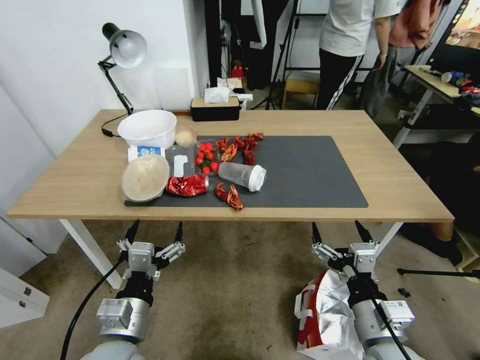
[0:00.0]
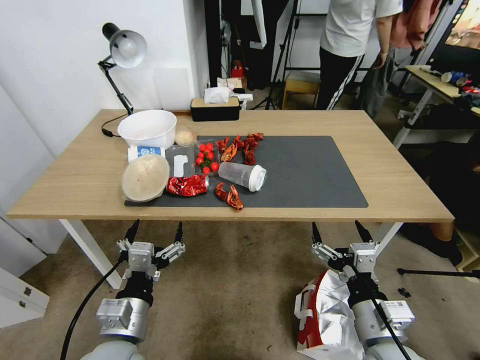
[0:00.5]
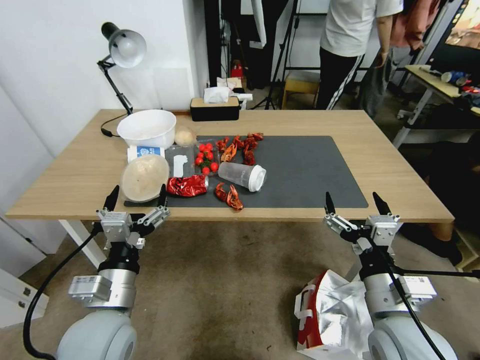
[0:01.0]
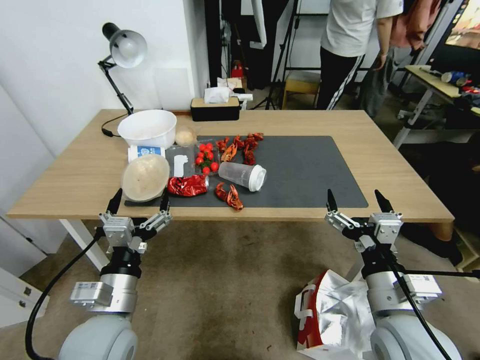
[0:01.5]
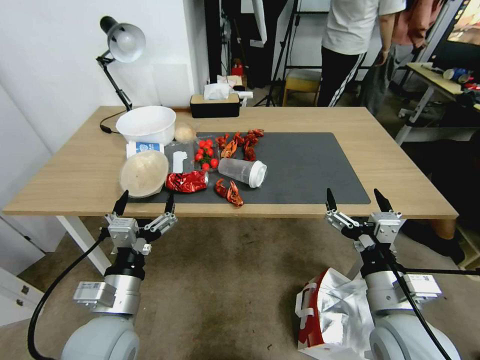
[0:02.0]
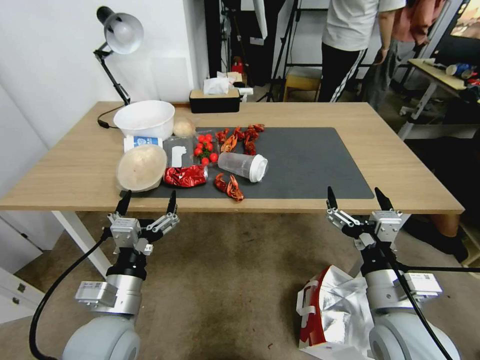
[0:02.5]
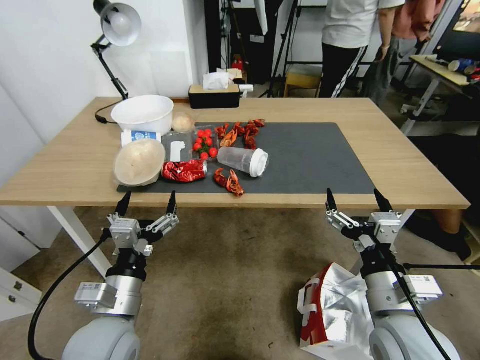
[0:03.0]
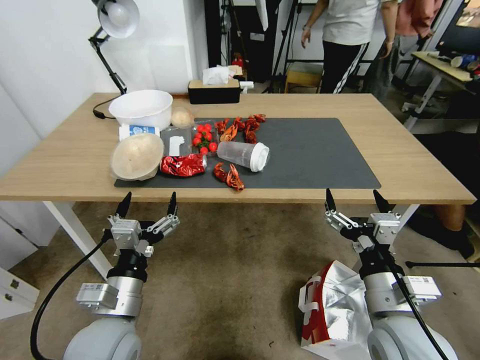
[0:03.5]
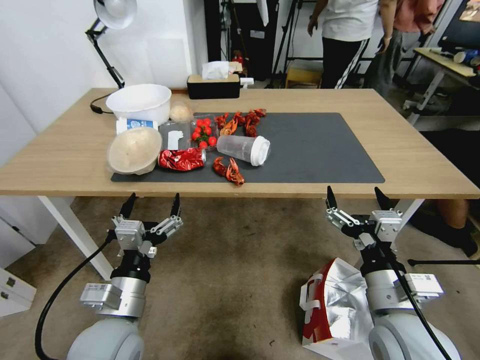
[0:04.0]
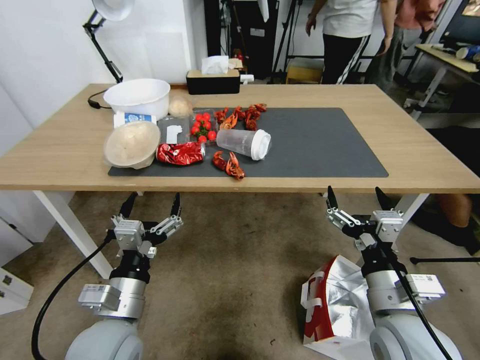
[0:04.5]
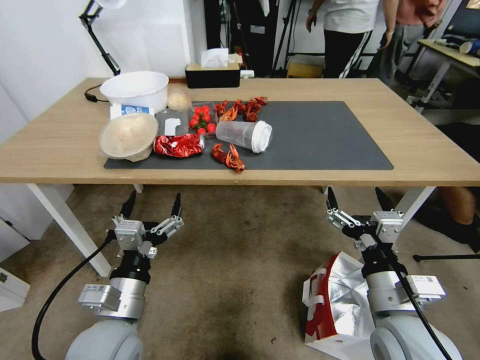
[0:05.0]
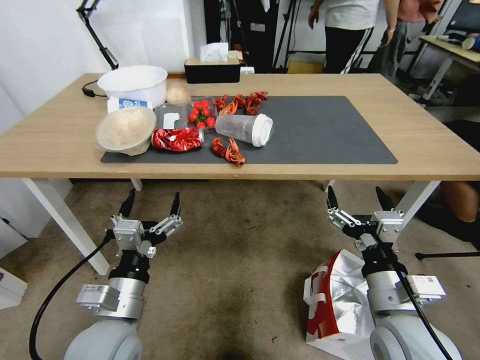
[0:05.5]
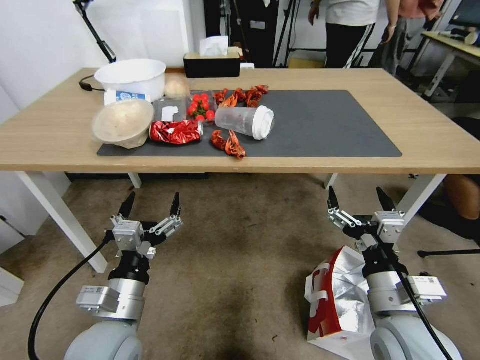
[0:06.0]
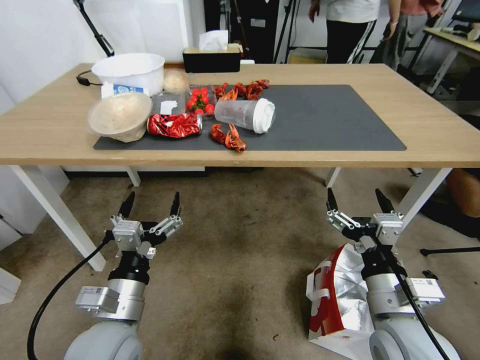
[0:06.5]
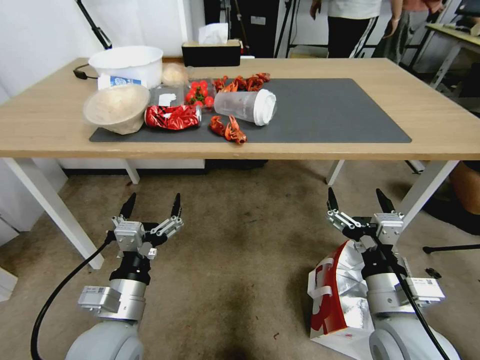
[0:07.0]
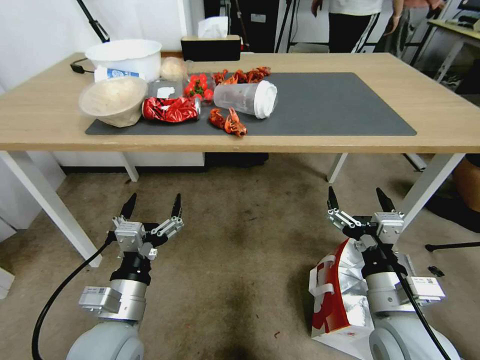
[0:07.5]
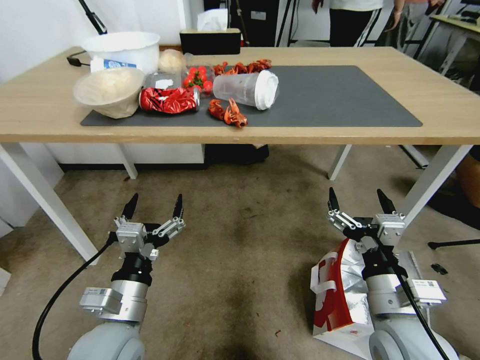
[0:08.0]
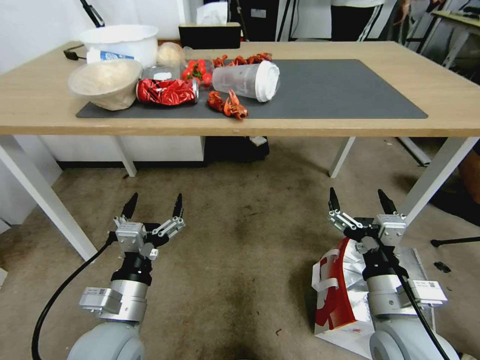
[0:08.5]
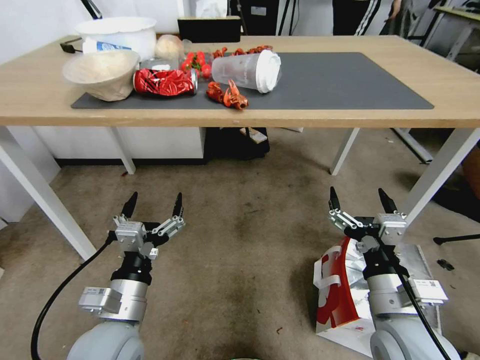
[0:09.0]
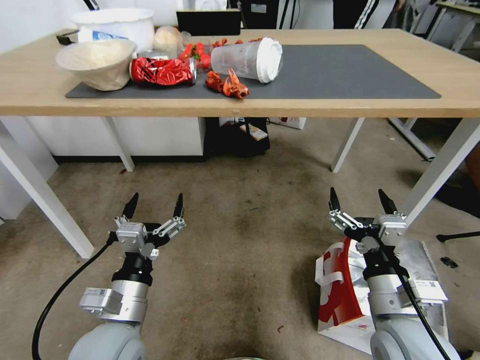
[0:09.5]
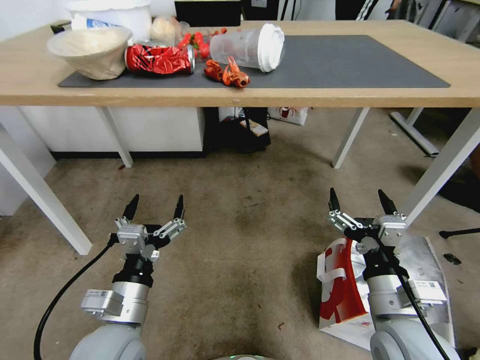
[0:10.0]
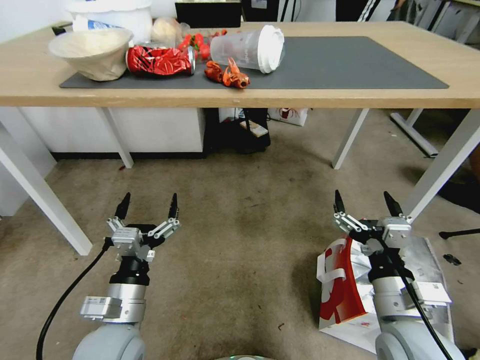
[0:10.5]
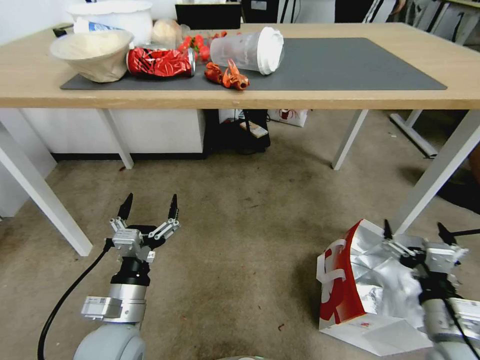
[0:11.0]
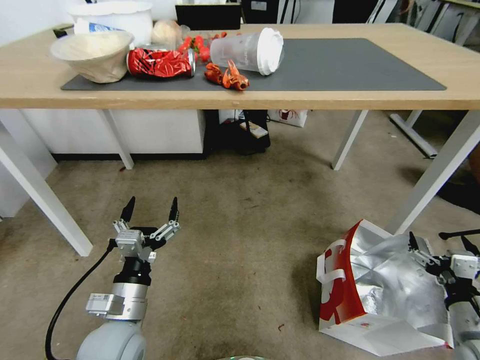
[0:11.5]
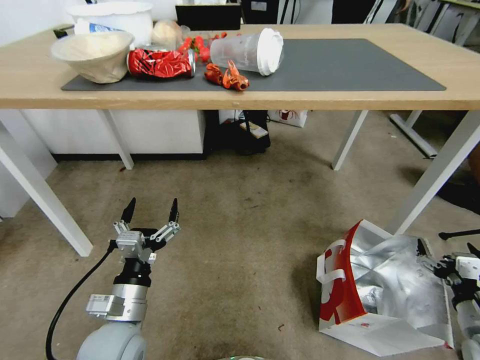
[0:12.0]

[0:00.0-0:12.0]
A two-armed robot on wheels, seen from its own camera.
Task of the whole recording: Pick up the food delivery bag from the floor and place it on the table.
0:10.0 to 0:12.0: The right gripper is displaced to the right and downward by approximately 25 cm.

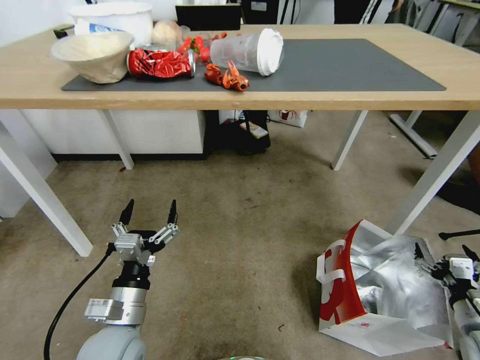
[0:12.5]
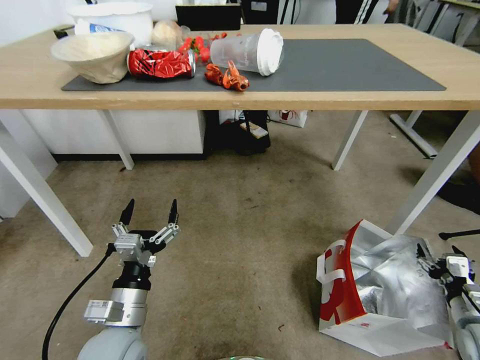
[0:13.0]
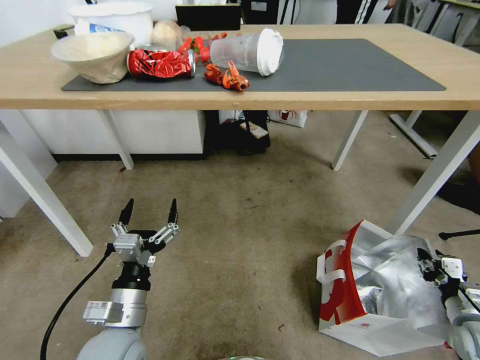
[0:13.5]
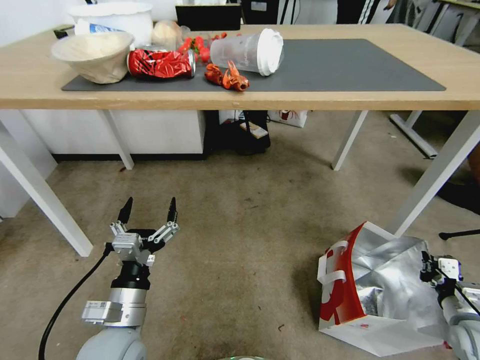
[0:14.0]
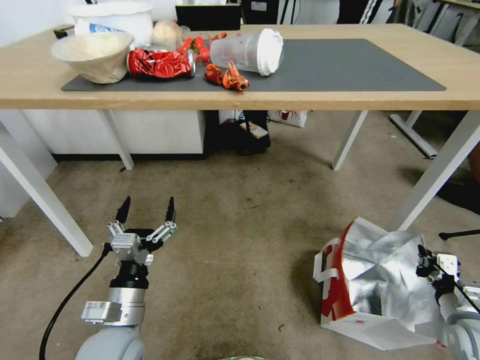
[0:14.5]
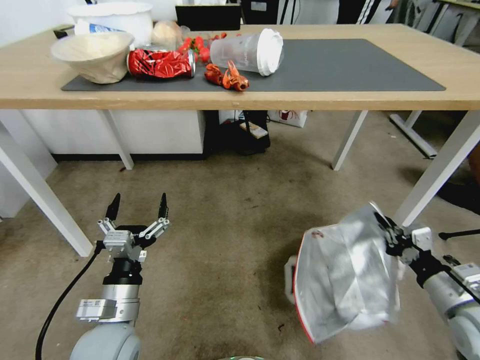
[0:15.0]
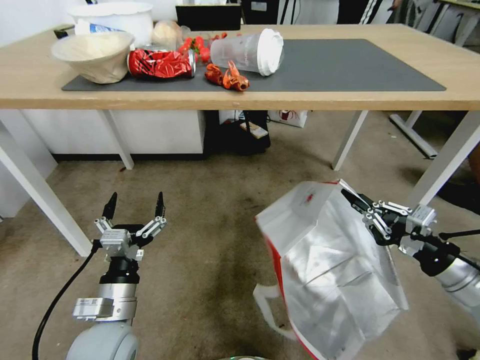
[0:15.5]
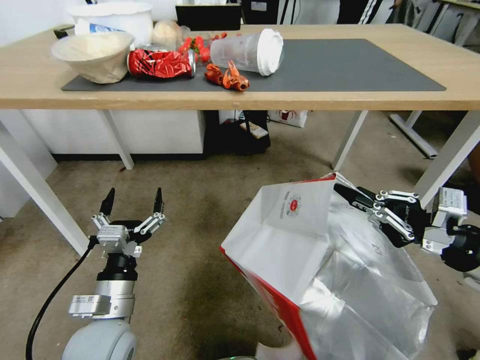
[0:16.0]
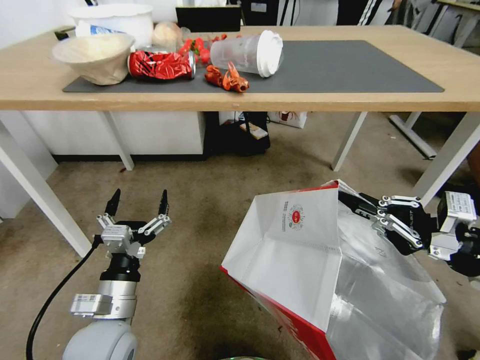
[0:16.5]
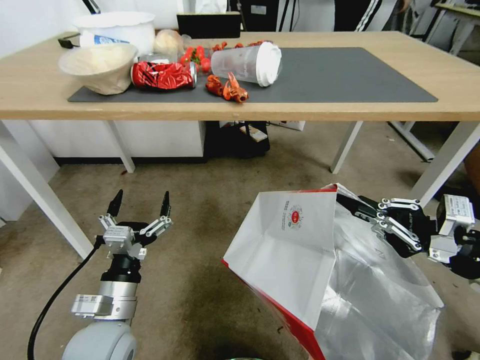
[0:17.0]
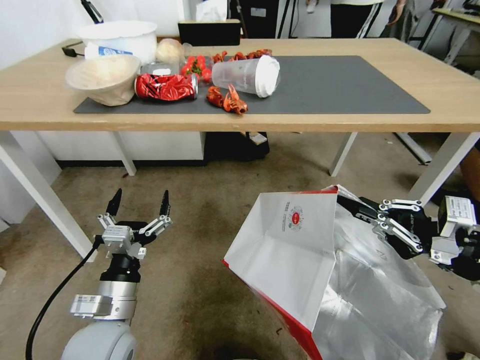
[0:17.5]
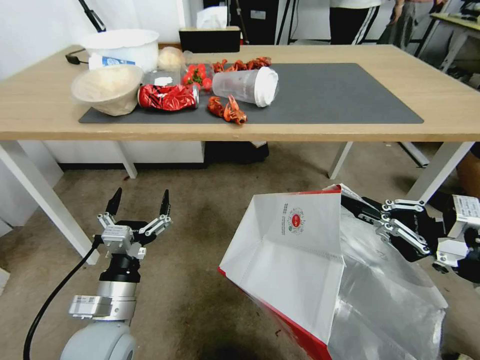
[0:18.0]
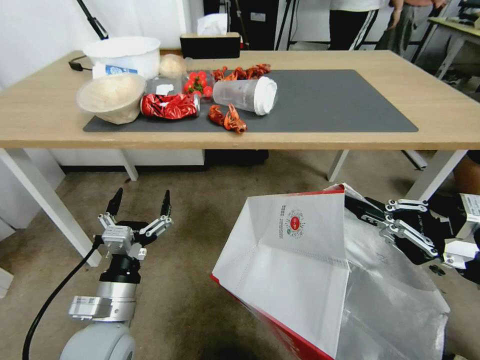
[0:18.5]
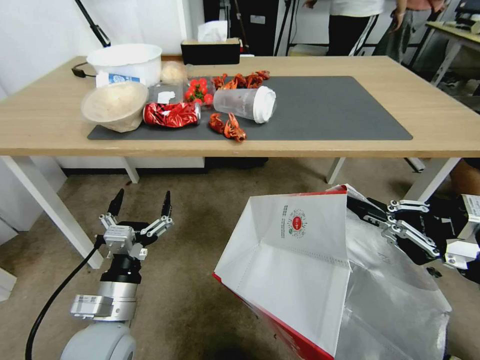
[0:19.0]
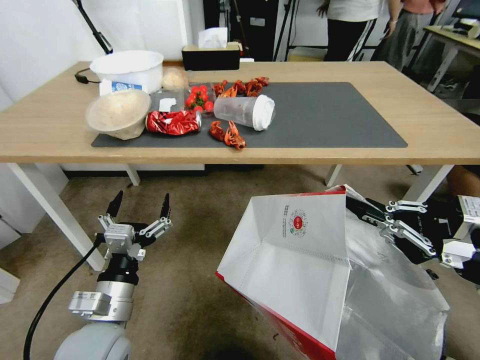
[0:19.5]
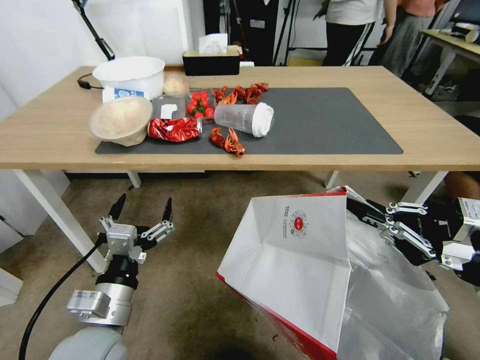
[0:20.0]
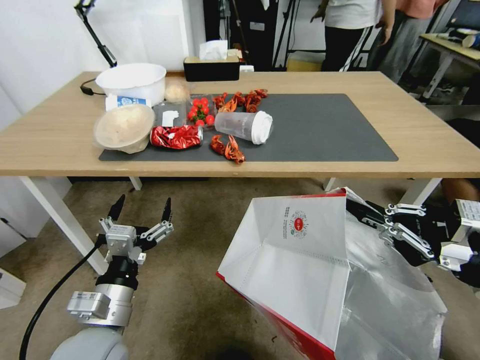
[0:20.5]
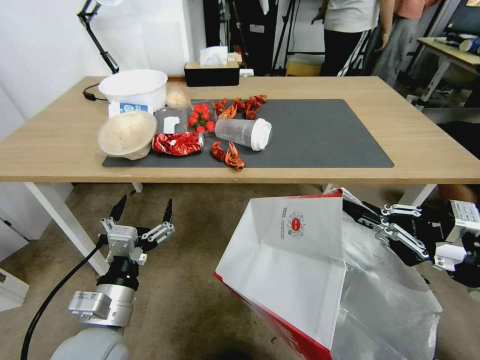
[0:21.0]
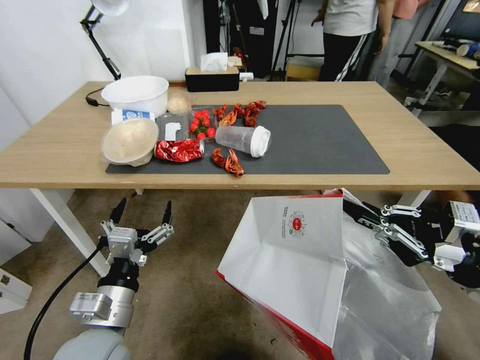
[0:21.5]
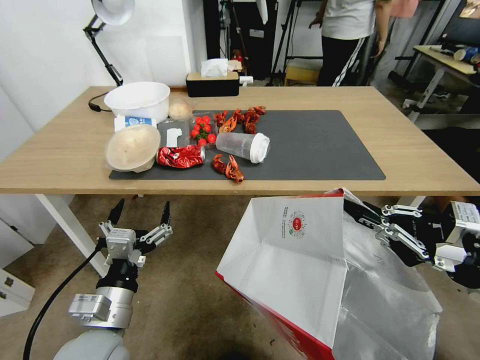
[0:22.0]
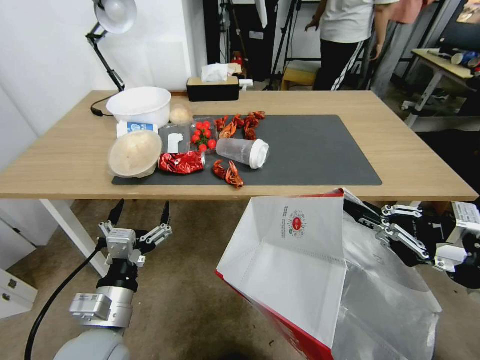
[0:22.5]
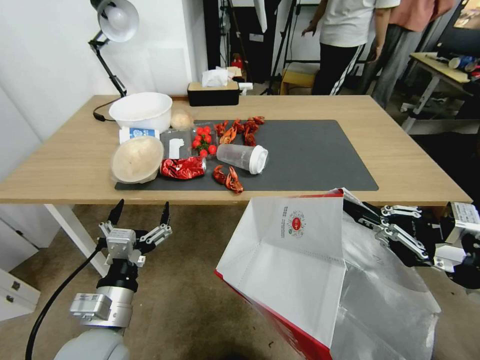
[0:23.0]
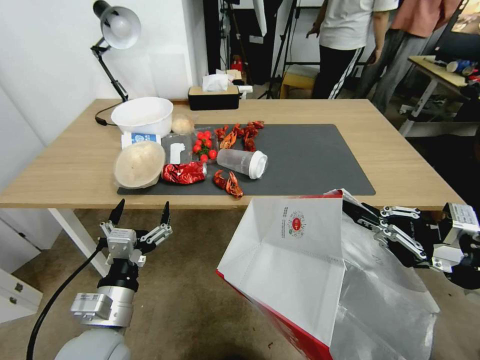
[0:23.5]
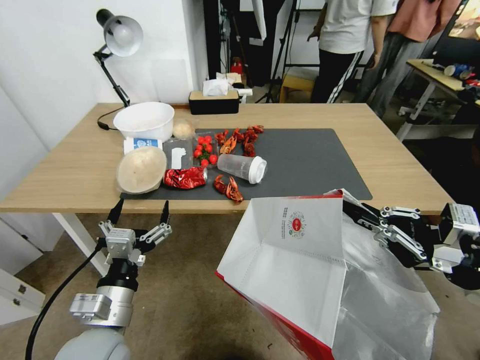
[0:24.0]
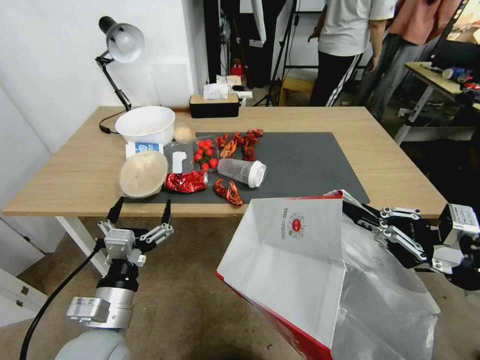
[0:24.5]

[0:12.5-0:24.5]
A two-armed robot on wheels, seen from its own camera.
Task of the whole recording: Pick up the food delivery bag from the floor and place it on the table.
0:12.5 to 0:14.5: The right gripper closes its fingers.
0:14.5 to 0:16.5: The right gripper goes roughly 25 cm upward.

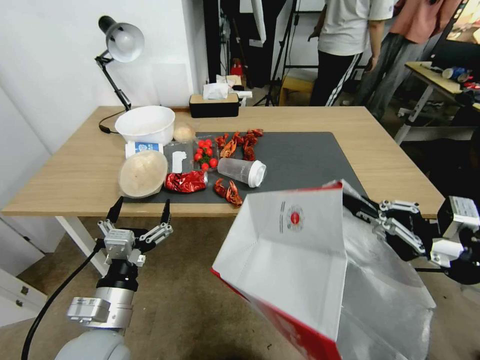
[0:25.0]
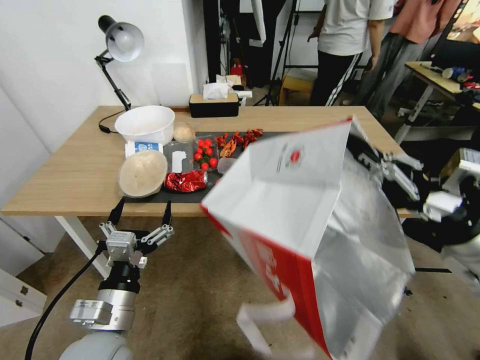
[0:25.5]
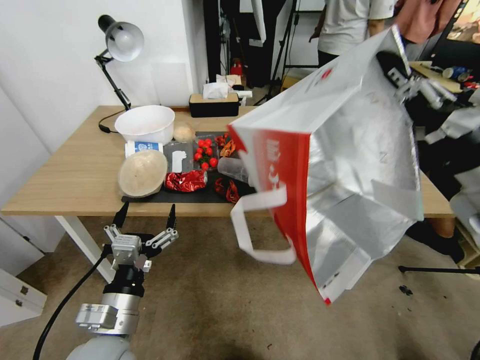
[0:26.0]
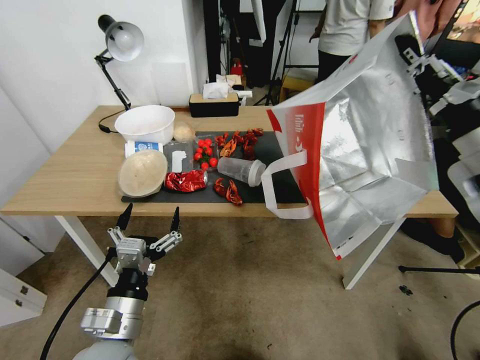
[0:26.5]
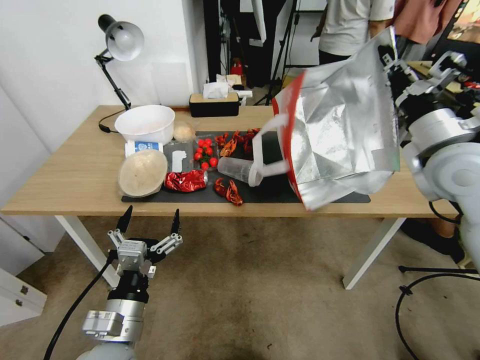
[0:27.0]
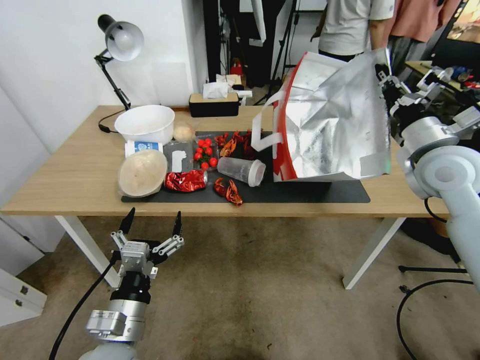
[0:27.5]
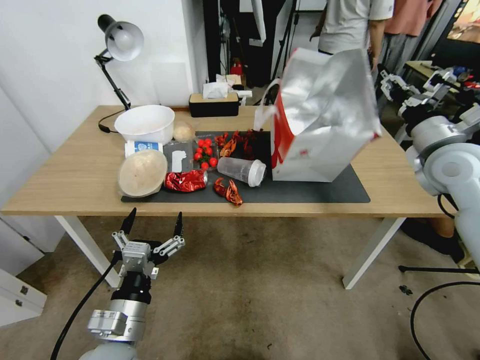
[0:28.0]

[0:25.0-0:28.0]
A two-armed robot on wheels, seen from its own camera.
Task of the whole recording: Pick up the food delivery bag from the floor and place it on the table.
0:25.0 to 0:26.5: The right gripper travels upward and forward by some 15 cm.
0:26.5 to 0:28.0: The right gripper goes some 15 cm forward and downward, and opens.
